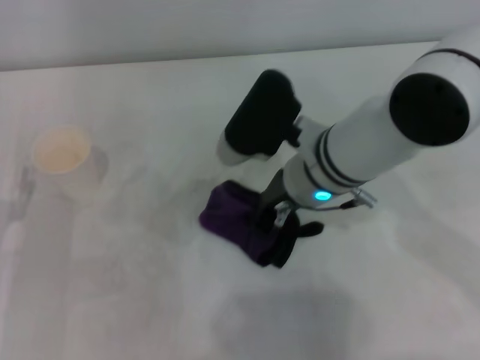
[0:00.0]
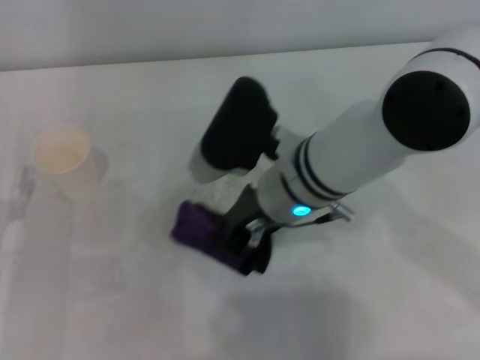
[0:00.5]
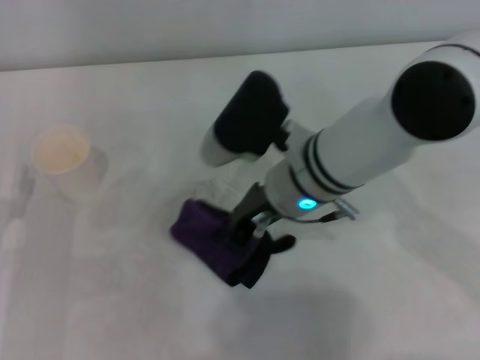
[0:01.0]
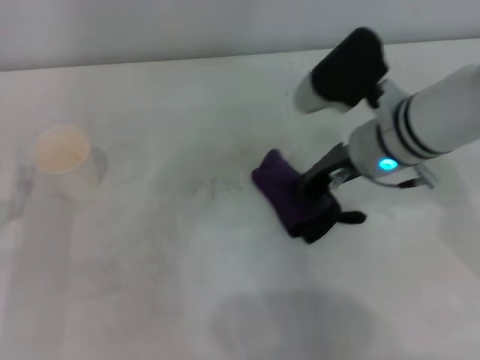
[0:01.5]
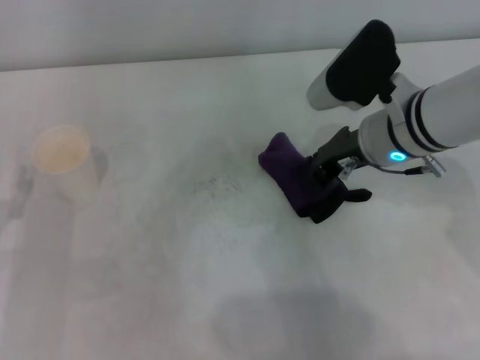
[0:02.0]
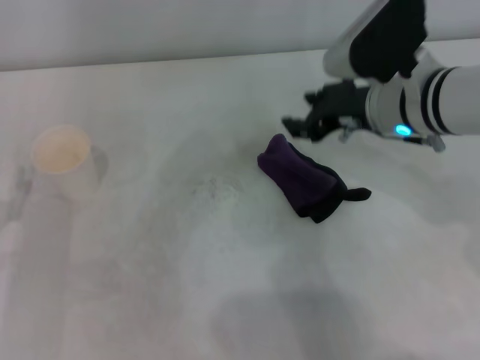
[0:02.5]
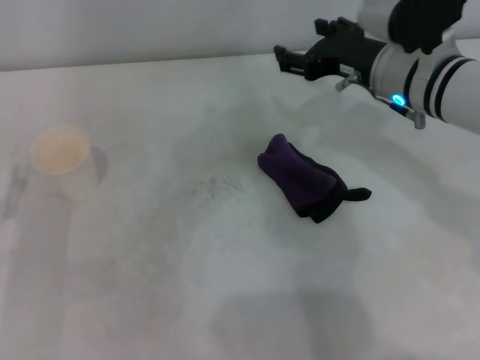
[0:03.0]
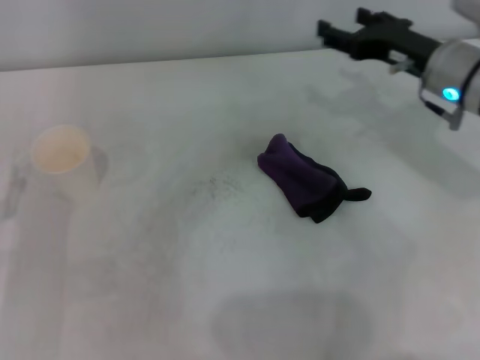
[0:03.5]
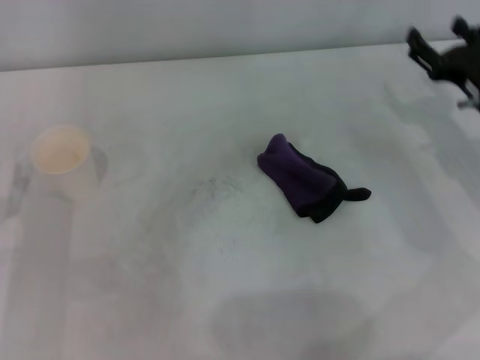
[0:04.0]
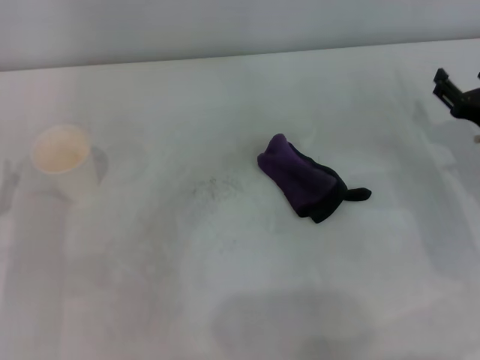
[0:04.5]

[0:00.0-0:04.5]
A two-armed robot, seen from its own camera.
Step, 0:01.5 to 0:02.0: Place the rag on the table with the right gripper.
0:00.0 to 0:02.0: The right gripper heads to the right, covering some 10 cm.
0:02.0 to 0:04.5: The right gripper travels to the right and downward by some 20 cm, and opens up.

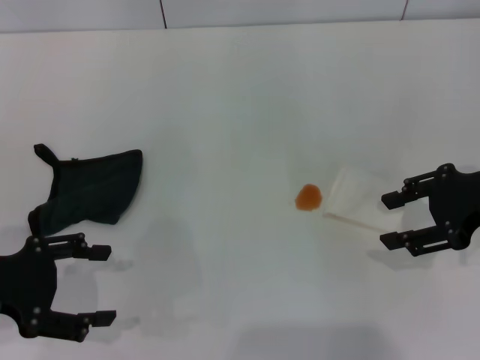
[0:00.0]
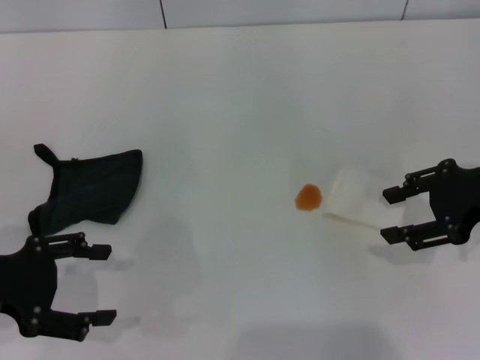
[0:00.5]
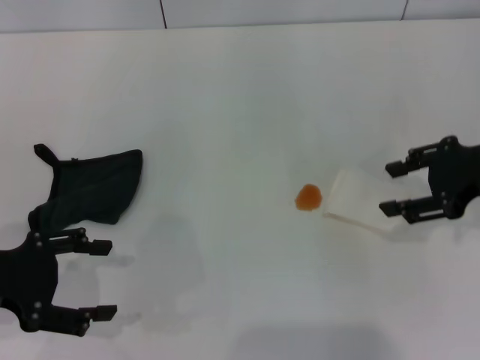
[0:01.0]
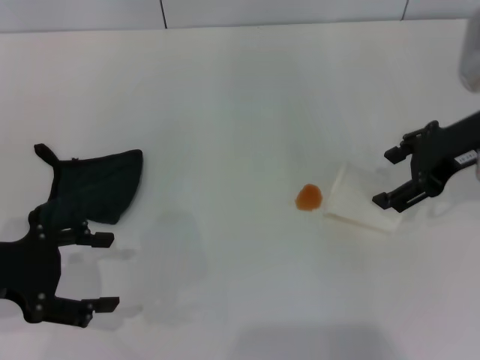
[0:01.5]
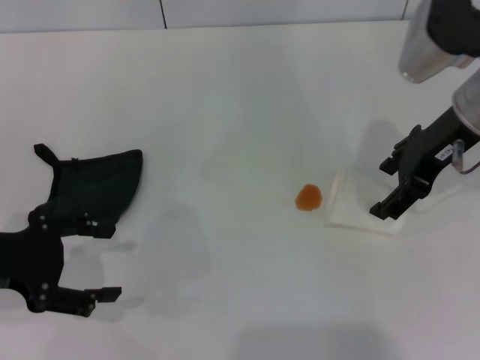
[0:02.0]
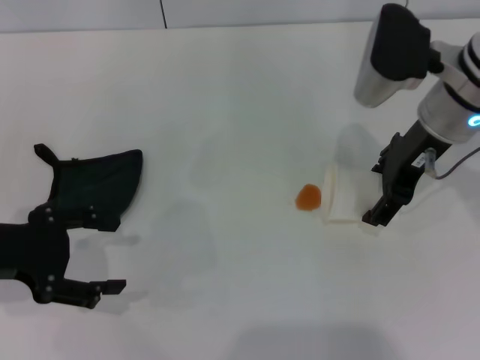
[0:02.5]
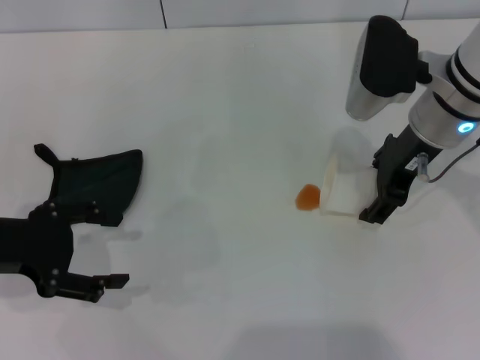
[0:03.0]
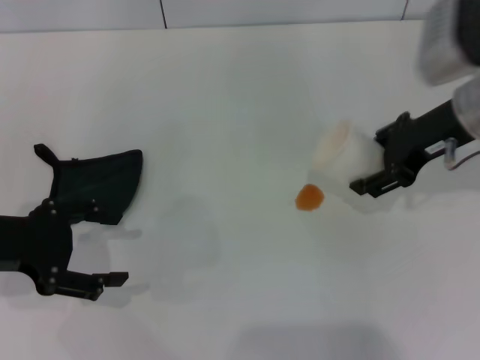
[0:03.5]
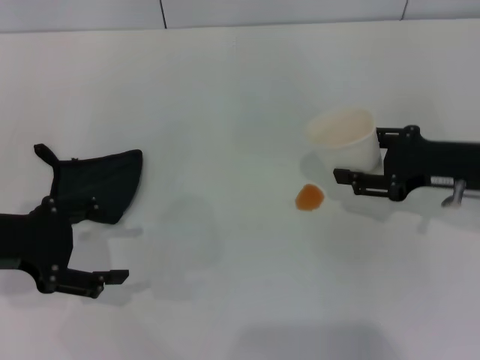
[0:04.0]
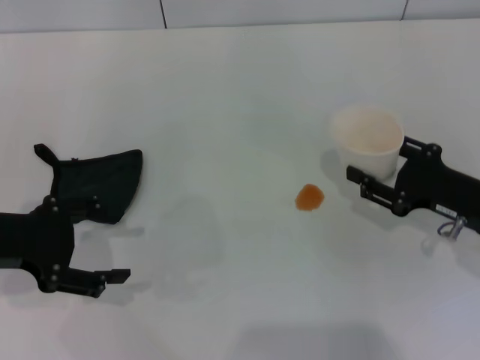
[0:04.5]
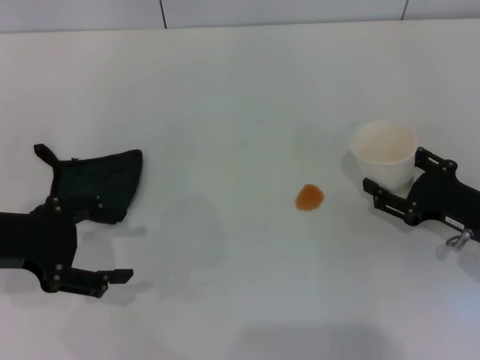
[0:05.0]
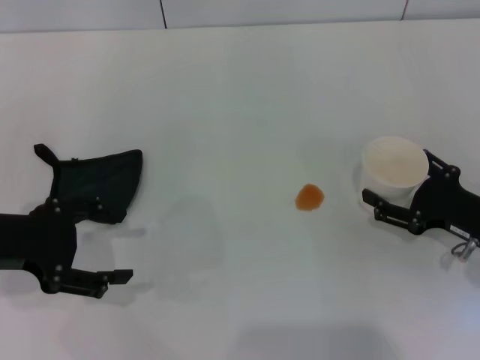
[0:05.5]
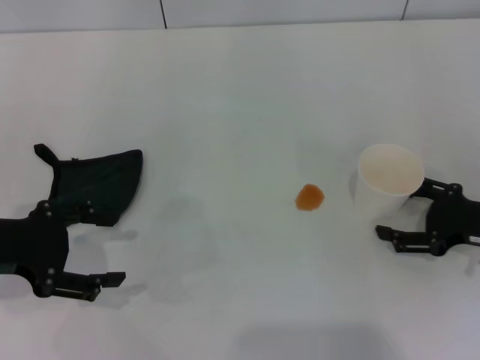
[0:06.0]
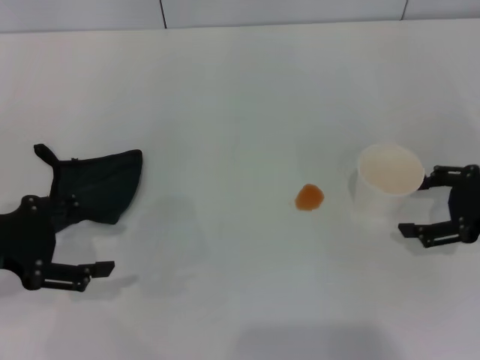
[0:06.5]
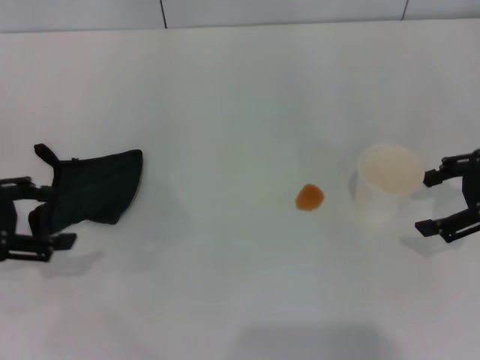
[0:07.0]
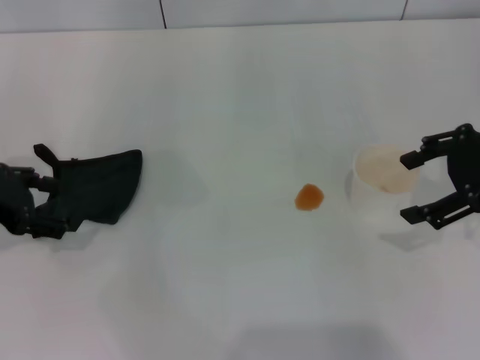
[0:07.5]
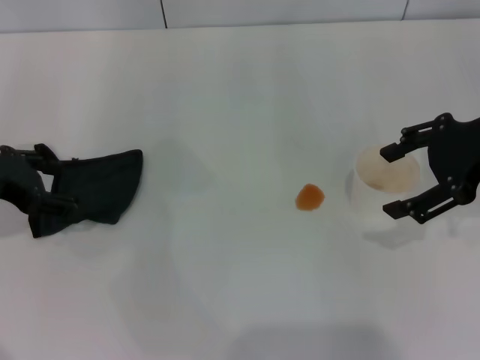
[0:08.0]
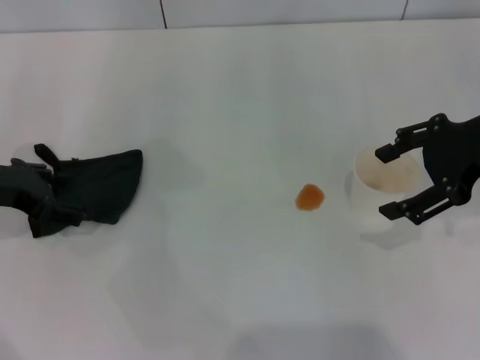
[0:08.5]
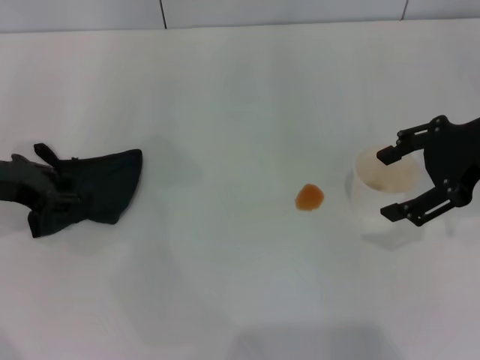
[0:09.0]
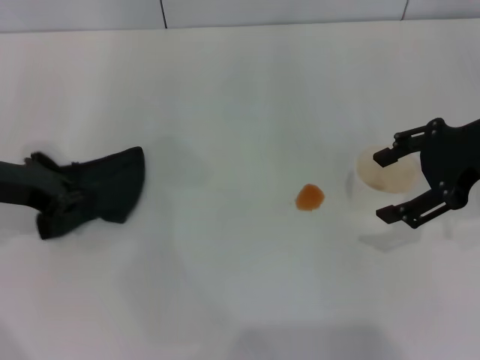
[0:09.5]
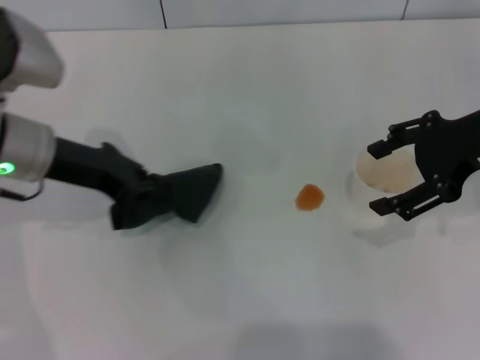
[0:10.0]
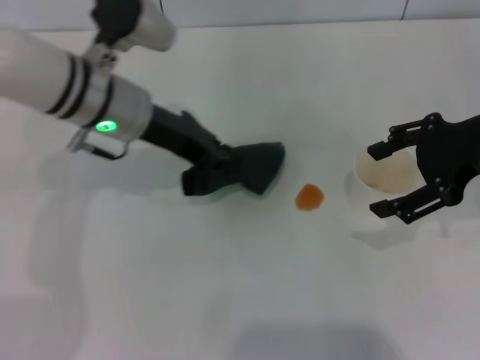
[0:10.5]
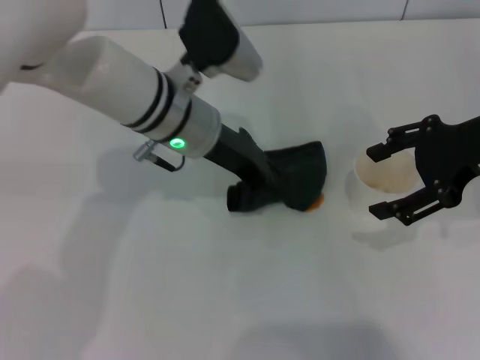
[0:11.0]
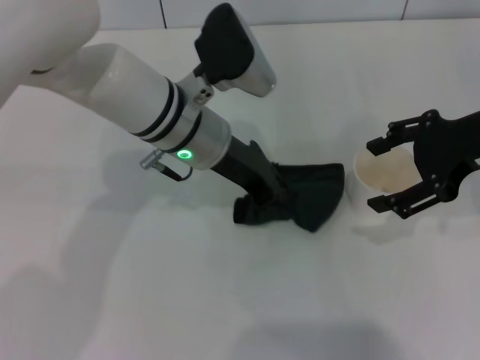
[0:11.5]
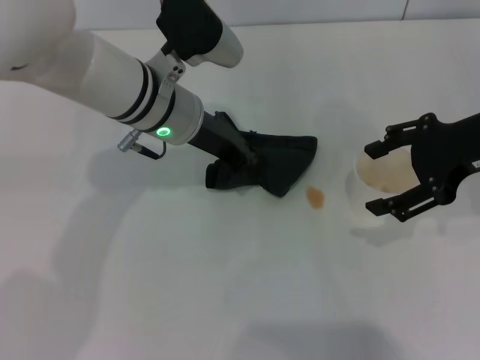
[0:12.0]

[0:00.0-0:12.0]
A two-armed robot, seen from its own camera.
Step, 0:00.0 to 0:03.0: Grasp the paper cup with the right gripper.
Step, 0:03.5 to 0:06.0: Stand the paper cup upright with the right gripper.
Step, 0:06.5 to 0:09.0: Grasp the rag with the left gripper.
0:00.0 to 0:02.0: The right gripper is displaced to the left and forward by some 10 cm, and opens.
0:02.0 to 0:04.0: The right gripper is displaced downward and to the right by about 10 cm, and closes up.
0:04.0 to 0:06.0: The right gripper travels downward by approximately 5 cm, and opens up.
0:06.0 to 0:08.0: The left gripper moves forward, approximately 5 cm. The right gripper shifts some 15 cm upward.
0:08.0 to 0:10.0: The left gripper is displaced to the right by some 10 cm, and closes its fingers.
0:10.0 to 0:12.0: The left gripper goes about 15 cm to the right.

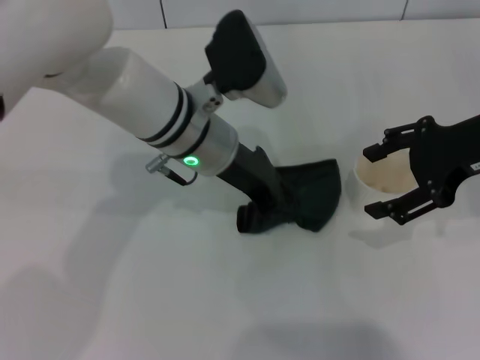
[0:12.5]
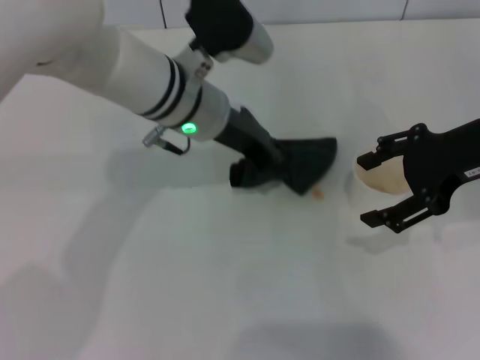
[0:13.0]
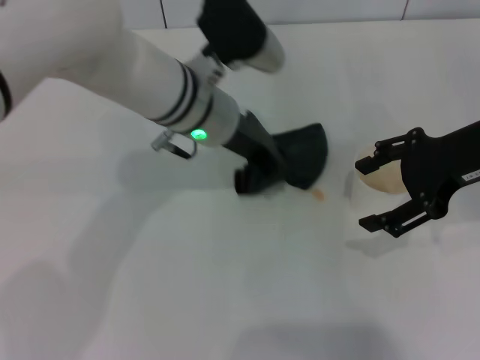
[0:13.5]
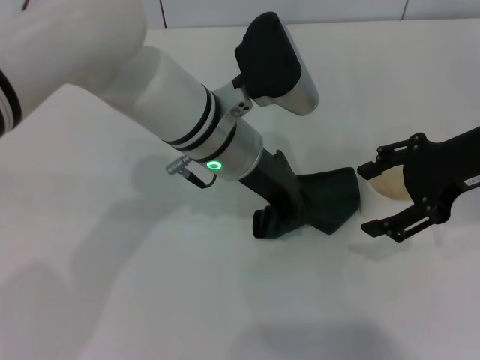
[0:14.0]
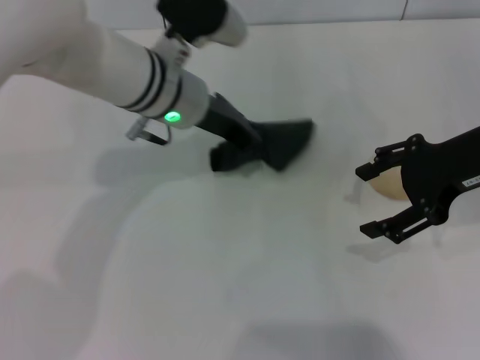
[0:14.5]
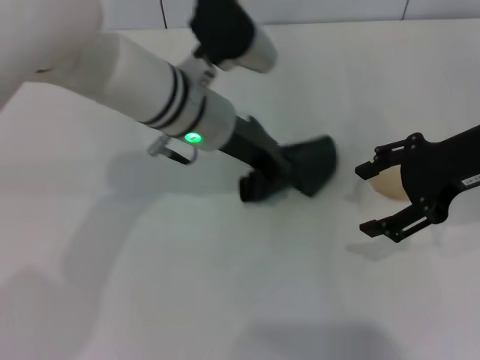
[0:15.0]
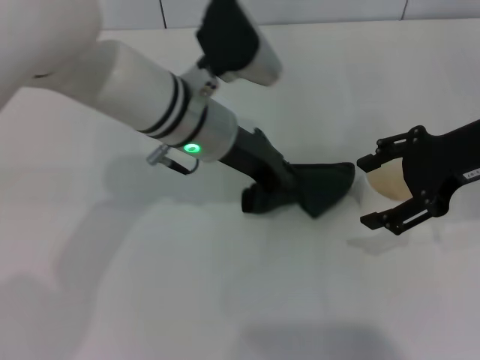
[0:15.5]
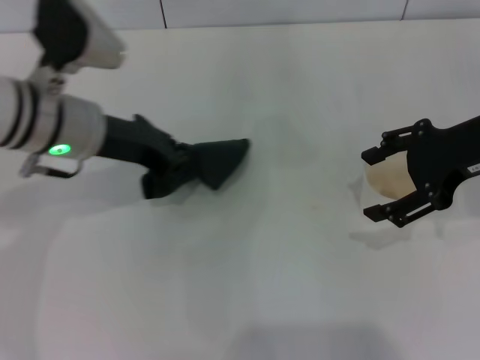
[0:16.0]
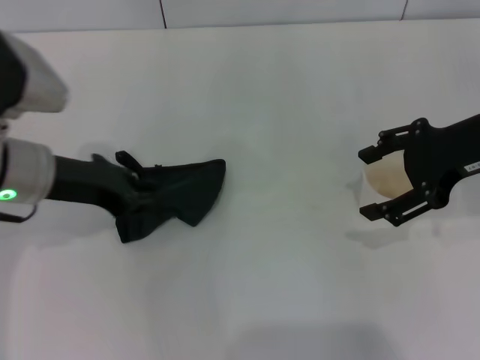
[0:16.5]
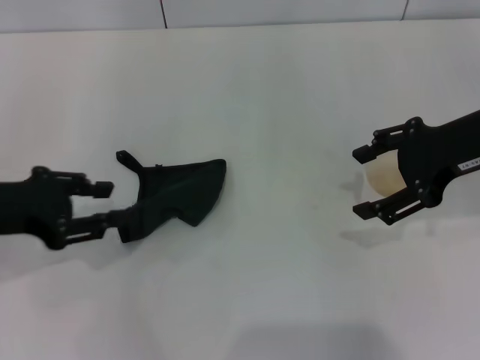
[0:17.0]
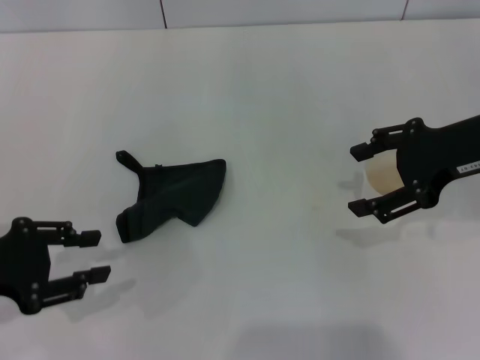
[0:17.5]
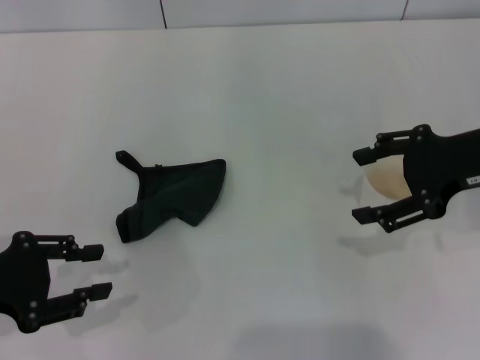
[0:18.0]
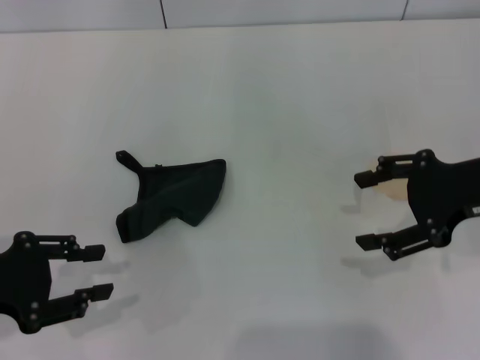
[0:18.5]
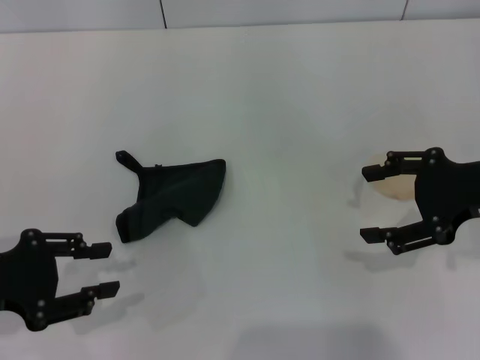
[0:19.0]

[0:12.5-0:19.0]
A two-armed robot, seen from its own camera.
Step, 0:14.5 to 0:16.5: Place the rag on the table with the left gripper.
0:14.5 to 0:17.0: The left gripper shifts approximately 25 cm to the left and backward, and opens up.
0:17.0 to 0:19.0: The right gripper moves roughly 5 cm. Meanwhile the left gripper is displaced backward by about 5 cm.
